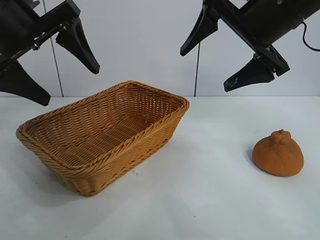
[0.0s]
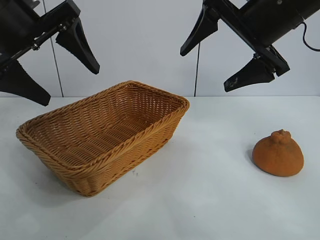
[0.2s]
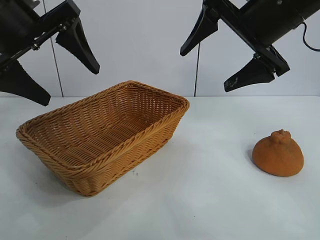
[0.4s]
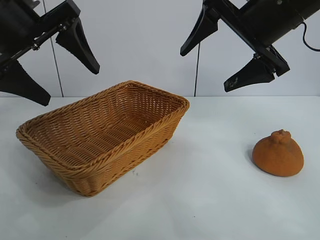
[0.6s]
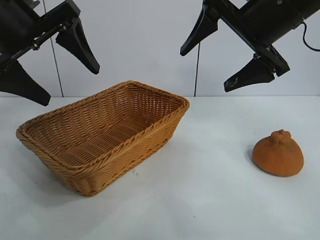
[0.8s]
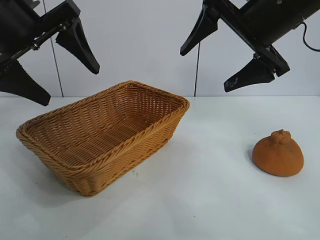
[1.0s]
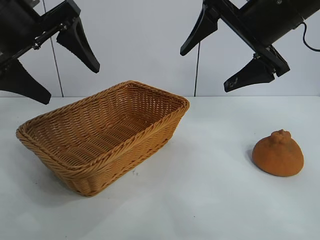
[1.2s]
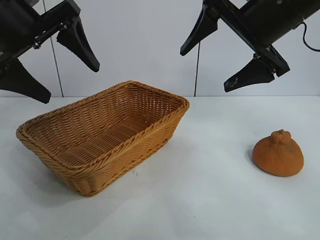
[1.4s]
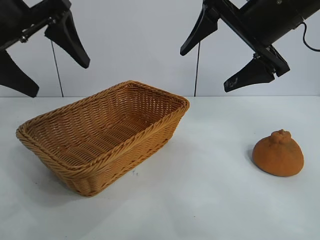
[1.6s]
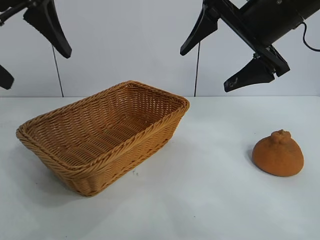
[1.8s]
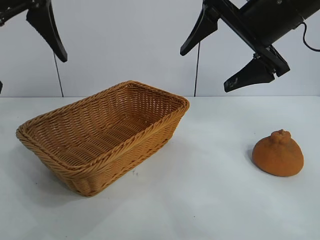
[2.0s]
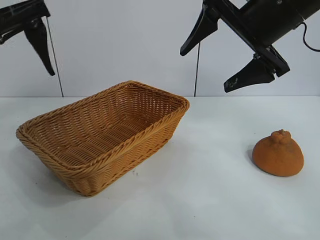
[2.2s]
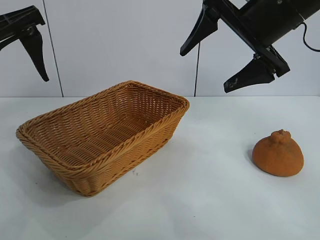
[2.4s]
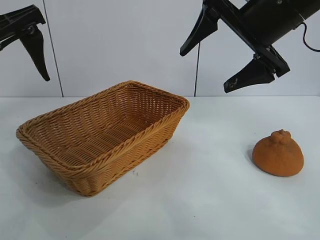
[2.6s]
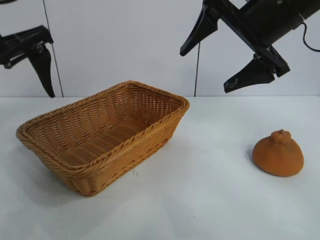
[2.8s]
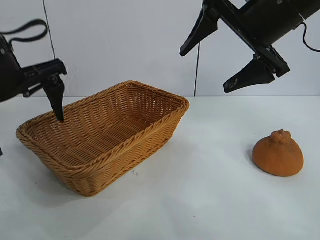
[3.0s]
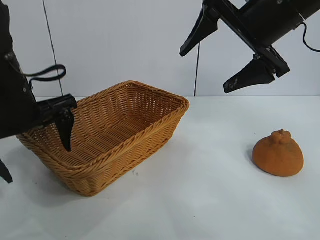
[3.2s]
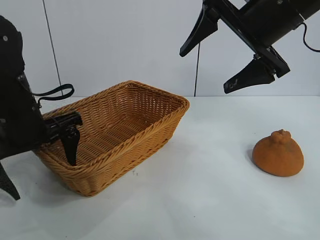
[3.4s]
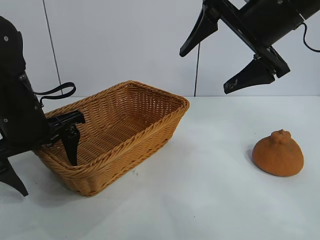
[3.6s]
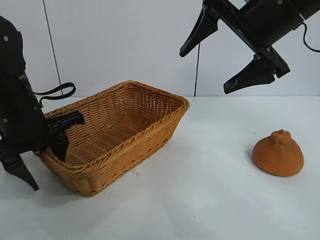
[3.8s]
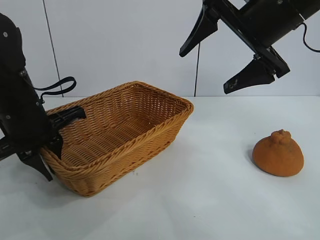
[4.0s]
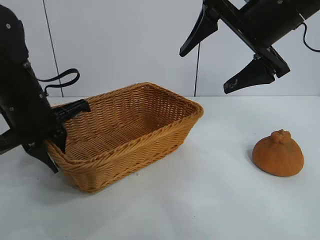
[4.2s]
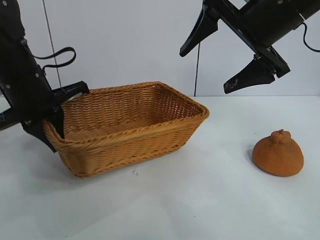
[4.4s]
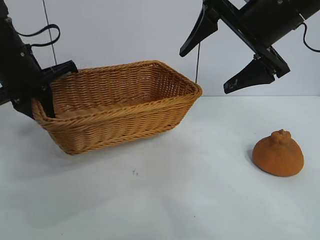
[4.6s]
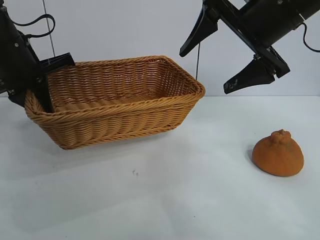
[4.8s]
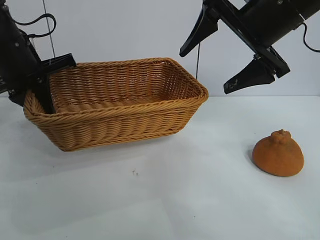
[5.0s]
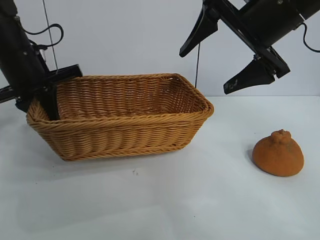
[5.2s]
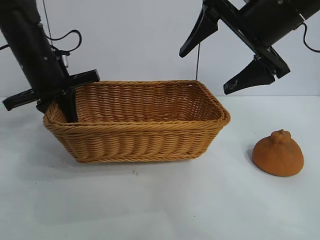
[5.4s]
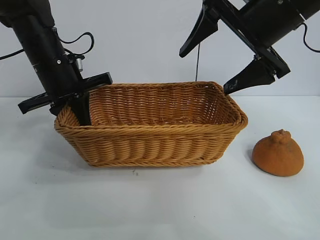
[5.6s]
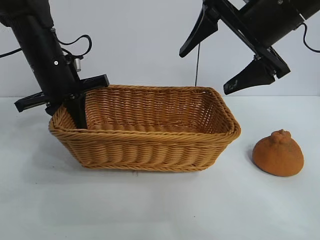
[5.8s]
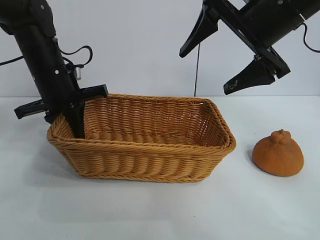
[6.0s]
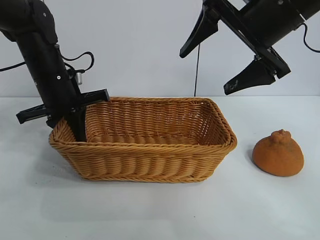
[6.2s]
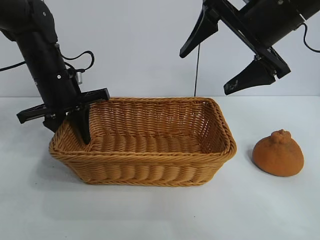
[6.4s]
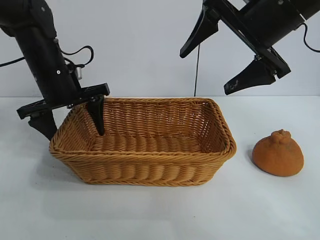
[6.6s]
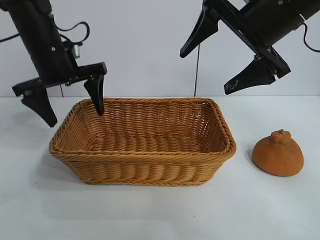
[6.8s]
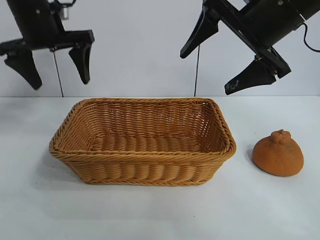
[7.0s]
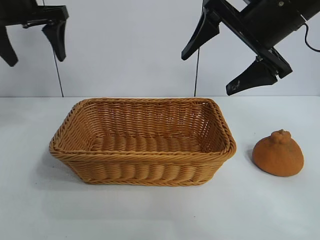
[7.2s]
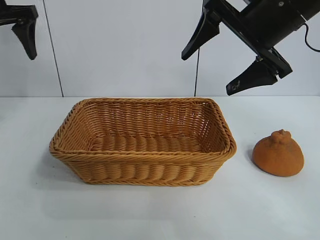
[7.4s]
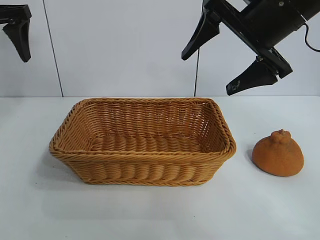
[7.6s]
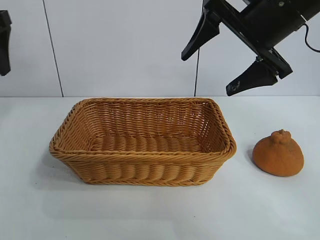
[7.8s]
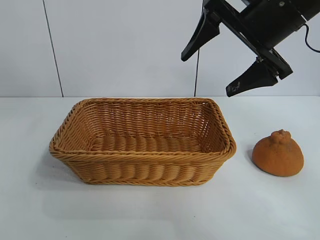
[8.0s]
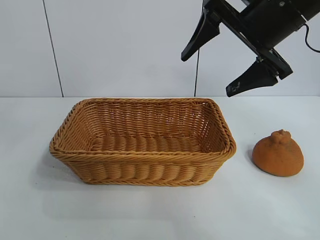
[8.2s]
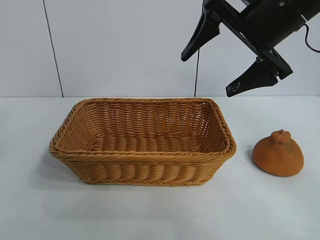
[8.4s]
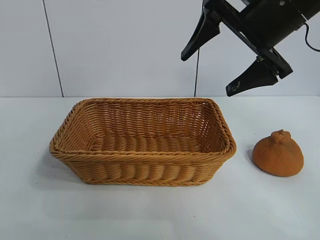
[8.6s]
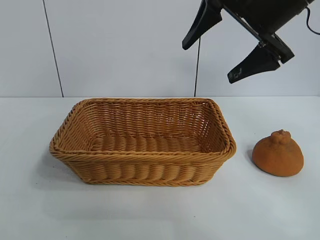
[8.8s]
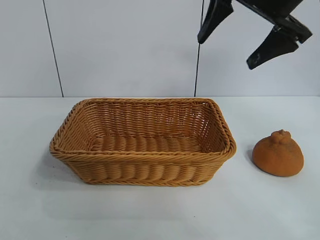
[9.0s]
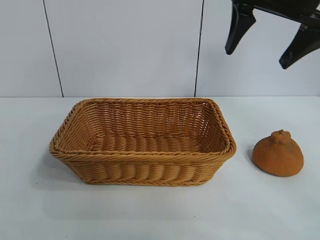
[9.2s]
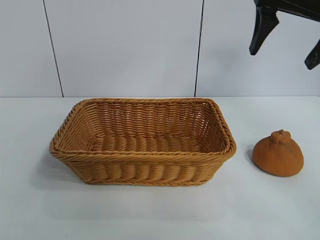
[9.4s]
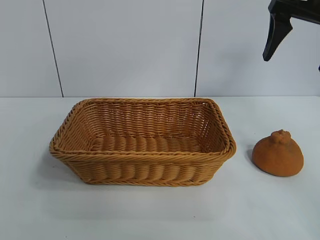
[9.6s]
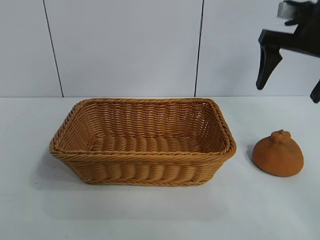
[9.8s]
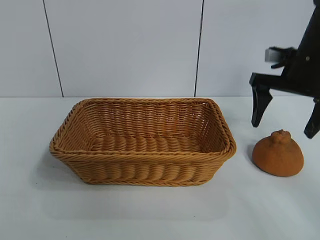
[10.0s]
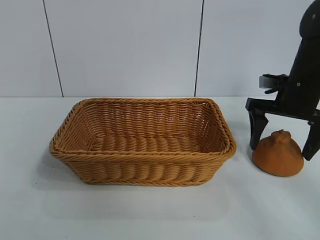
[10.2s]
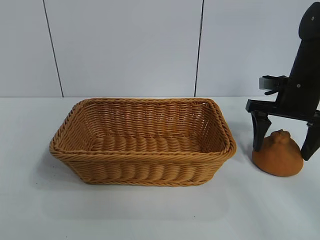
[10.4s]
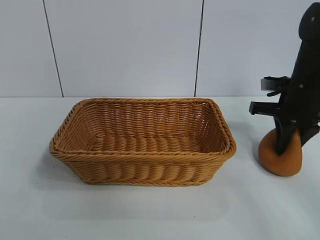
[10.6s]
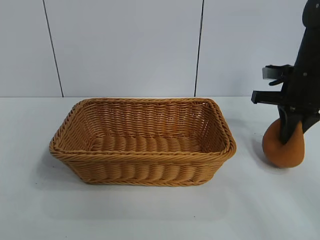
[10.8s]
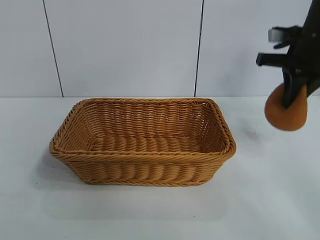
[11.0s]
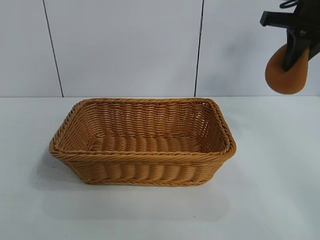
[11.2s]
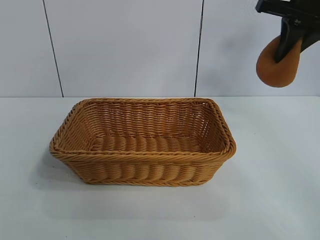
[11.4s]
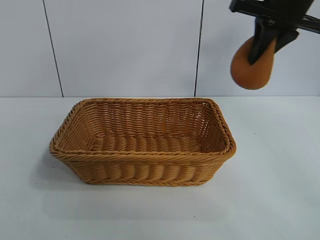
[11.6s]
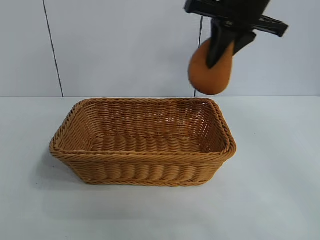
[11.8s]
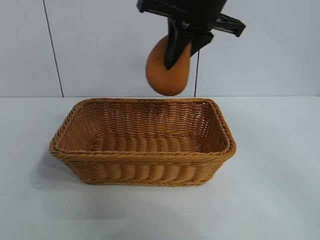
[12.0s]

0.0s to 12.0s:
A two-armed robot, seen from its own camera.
Task of the whole recording: pick up the orange and put it into the basket.
Step, 0.8s to 4.0s: Grasp the basket with left gripper.
Step, 4.2s to 6.4s: Place the basket in the center of view with left gripper.
Step, 6.6s to 10.6s: Grasp the orange with right gripper.
